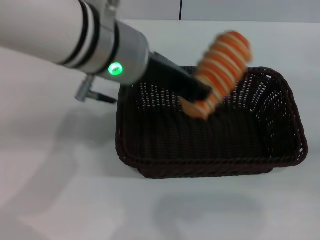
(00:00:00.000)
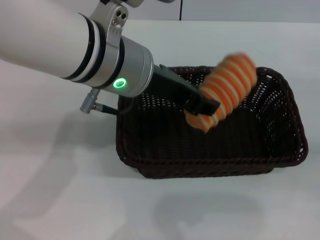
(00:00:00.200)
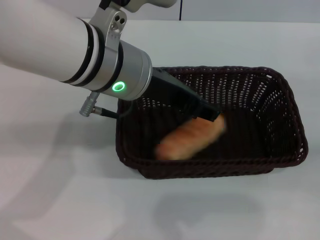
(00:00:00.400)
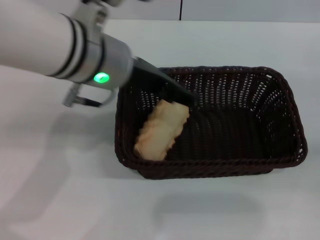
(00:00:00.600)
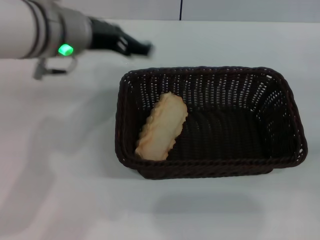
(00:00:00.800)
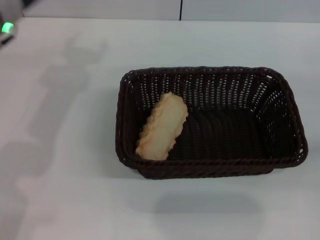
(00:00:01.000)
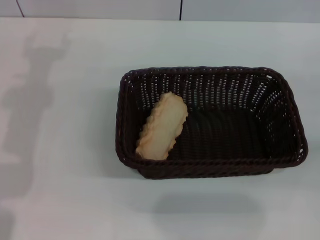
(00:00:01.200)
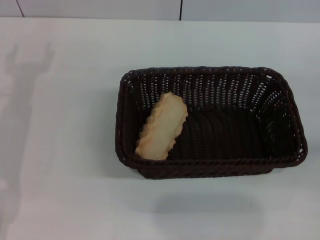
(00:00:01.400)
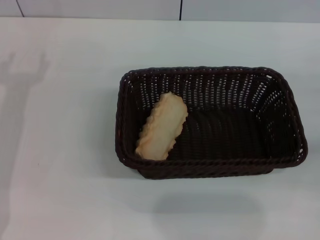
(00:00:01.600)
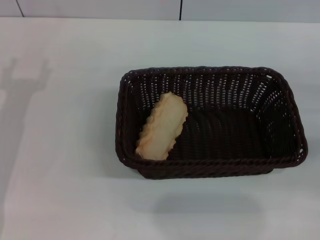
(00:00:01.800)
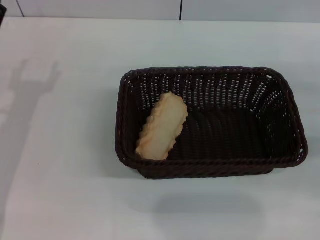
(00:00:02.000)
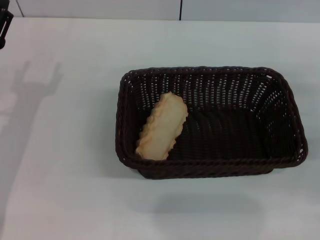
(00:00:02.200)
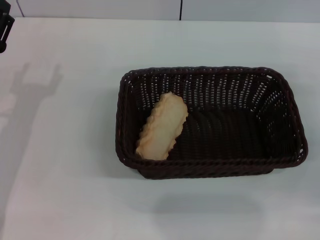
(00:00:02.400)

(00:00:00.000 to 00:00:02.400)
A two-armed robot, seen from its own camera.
00:00:00.000 - 00:00:01.200: The left gripper moves to the left, approximately 20 cm, and opens up.
00:00:01.200 - 00:00:02.400: The left gripper moves downward and backward, roughly 10 cm.

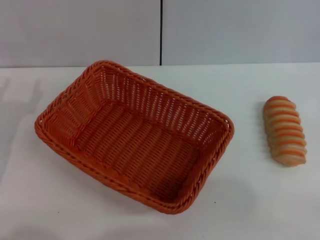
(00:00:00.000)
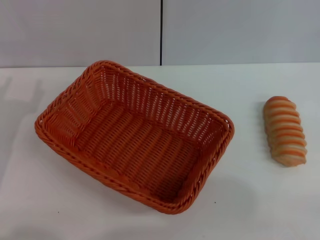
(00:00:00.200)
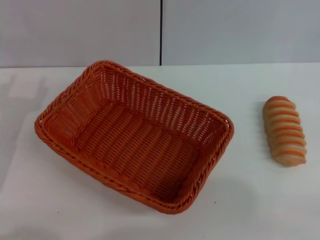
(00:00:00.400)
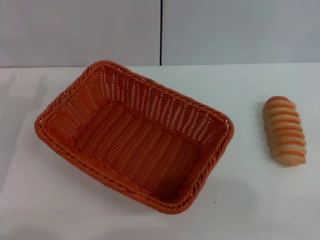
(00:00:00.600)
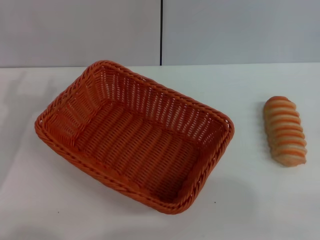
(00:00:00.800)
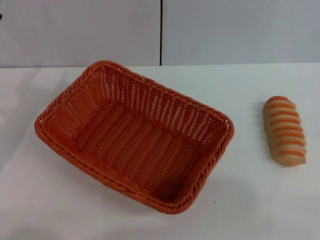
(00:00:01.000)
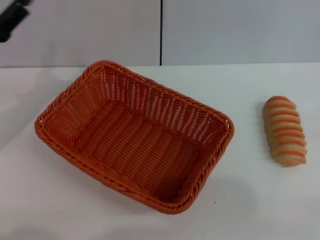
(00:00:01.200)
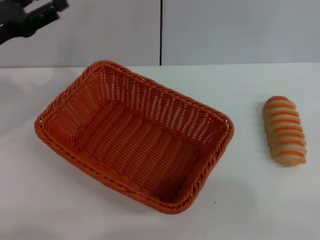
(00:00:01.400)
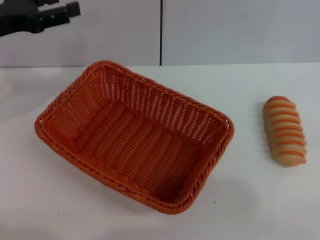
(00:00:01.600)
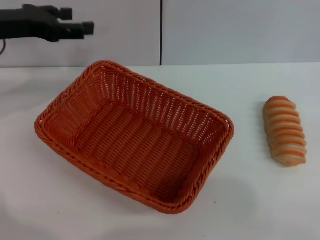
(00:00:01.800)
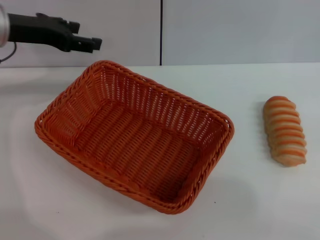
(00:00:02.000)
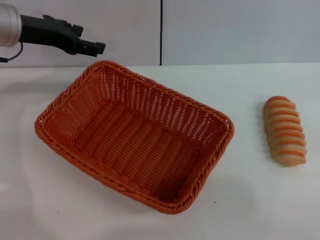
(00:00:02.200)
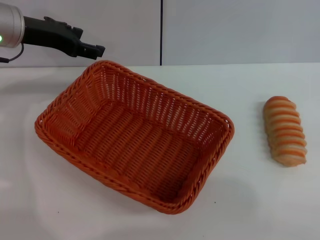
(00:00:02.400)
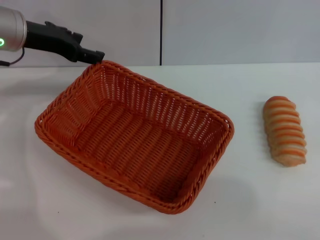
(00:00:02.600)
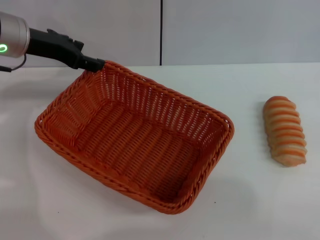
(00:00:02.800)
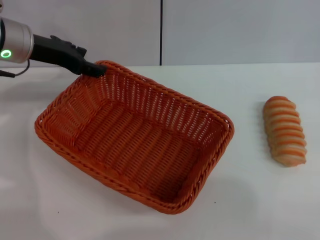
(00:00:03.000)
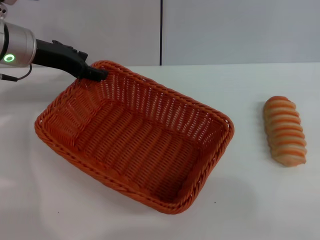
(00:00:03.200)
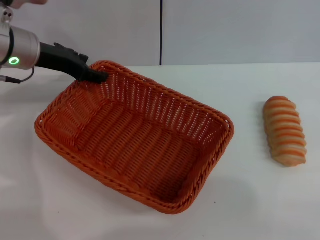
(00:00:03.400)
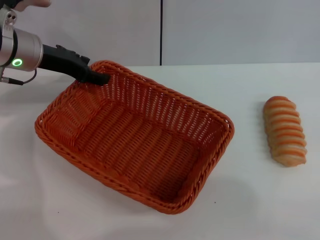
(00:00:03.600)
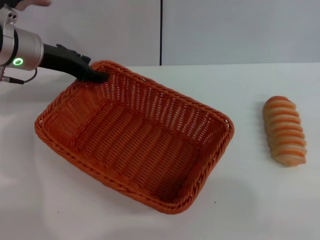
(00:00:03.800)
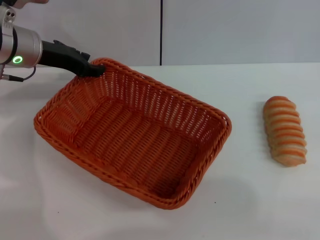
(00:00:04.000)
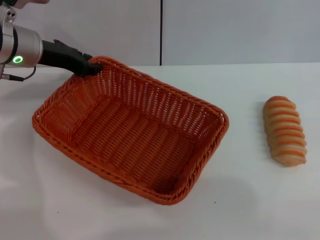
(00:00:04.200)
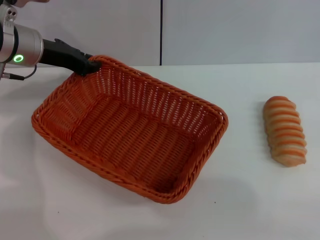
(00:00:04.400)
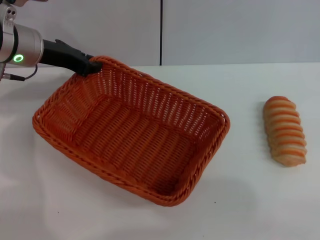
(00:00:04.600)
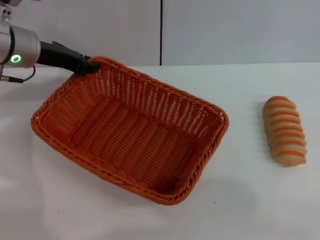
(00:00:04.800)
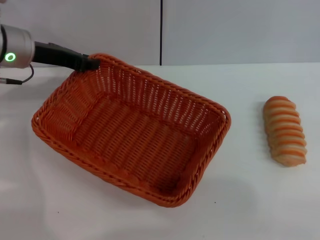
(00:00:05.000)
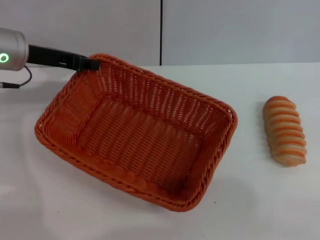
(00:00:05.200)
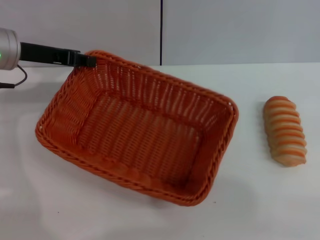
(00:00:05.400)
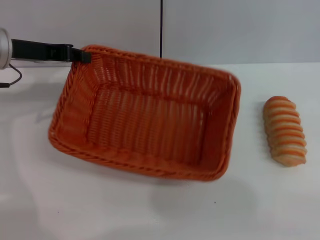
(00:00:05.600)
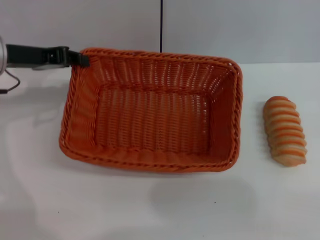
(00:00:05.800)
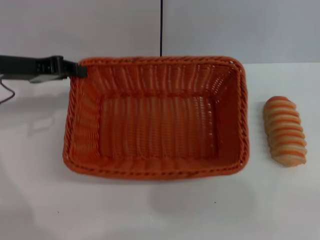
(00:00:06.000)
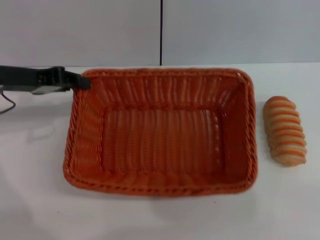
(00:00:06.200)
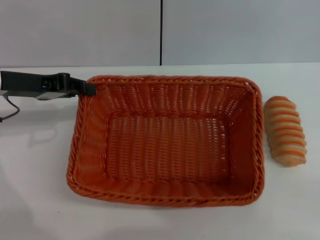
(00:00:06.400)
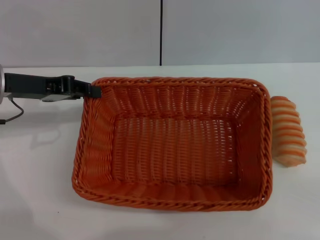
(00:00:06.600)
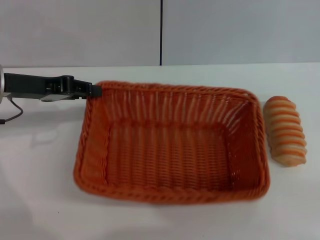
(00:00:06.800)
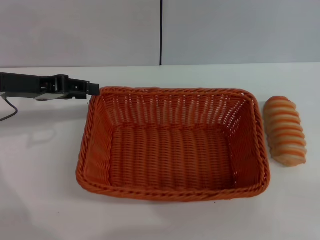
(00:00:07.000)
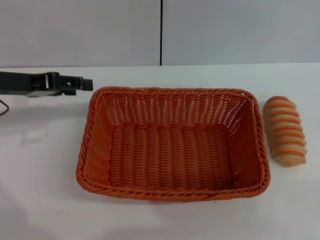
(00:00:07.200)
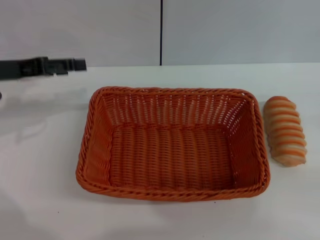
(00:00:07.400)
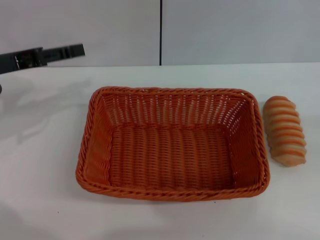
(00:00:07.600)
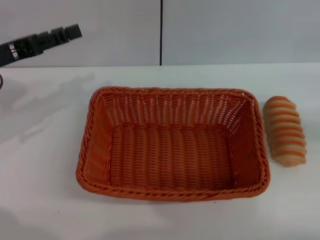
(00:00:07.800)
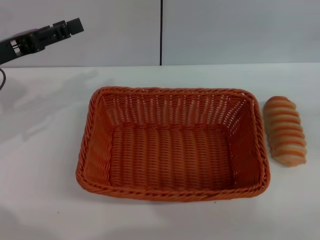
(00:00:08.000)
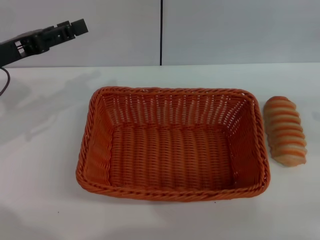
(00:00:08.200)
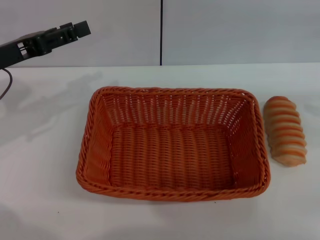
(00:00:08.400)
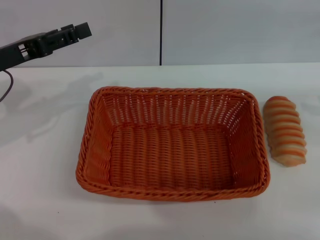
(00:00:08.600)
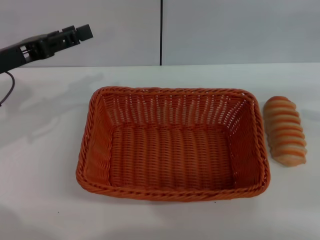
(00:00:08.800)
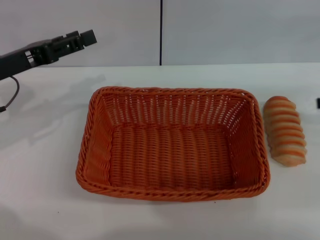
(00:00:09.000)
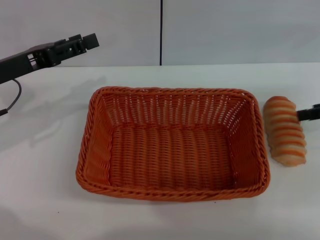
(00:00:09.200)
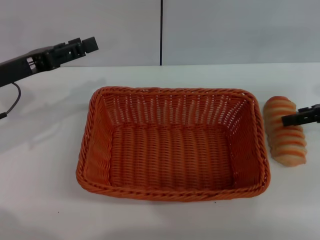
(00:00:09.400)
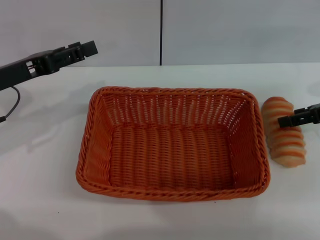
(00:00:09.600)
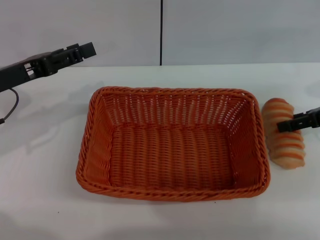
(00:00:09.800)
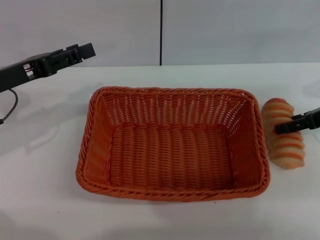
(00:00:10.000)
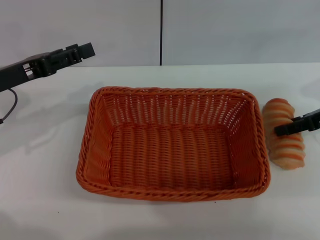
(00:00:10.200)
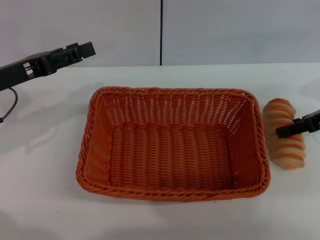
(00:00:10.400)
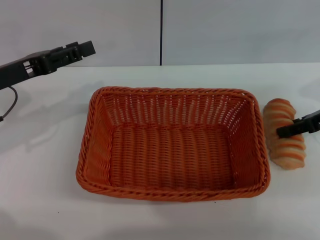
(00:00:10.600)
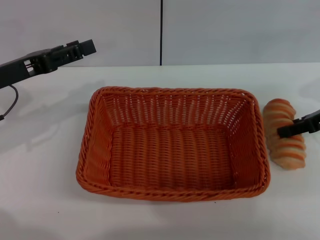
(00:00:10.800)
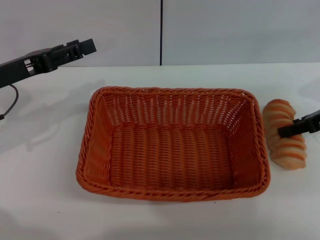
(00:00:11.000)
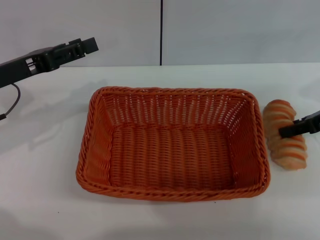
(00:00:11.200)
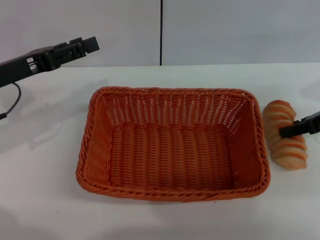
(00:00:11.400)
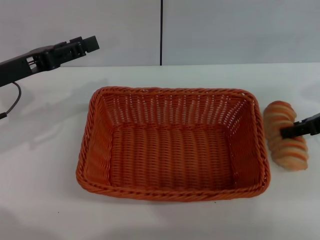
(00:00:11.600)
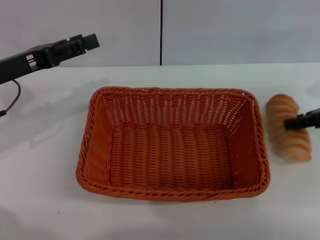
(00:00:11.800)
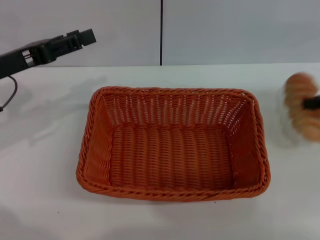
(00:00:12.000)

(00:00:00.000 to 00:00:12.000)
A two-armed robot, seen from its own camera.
Step, 00:00:00.000 - 00:00:05.600: Pick up the light basket with the left gripper.
Step, 00:00:05.800 - 00:00:07.800: Place the light basket in the center of view with the left gripper.
Step, 00:00:08.200 - 00:00:11.800: Pick up the long bread with the right gripper.
00:00:00.000 - 00:00:01.600: The left gripper is displaced forward and upward by some 15 cm.
00:00:01.600 - 00:00:03.000: The left gripper moves to the right, roughly 5 cm.
00:00:03.000 - 00:00:04.400: The left gripper closes up.
00:00:04.400 - 00:00:06.000: The left gripper travels backward and to the left by approximately 10 cm.
00:00:06.000 - 00:00:07.600: The left gripper opens up, while the right gripper heads upward, covering approximately 10 cm.
00:00:09.000 - 00:00:10.400: The right gripper goes about 5 cm to the left.
00:00:10.400 - 00:00:12.000: The right gripper ends up roughly 5 cm from where it was, and closes up.

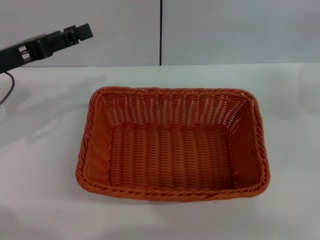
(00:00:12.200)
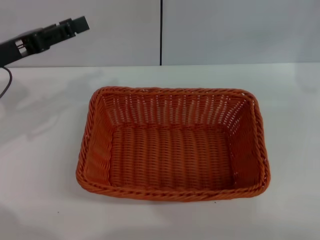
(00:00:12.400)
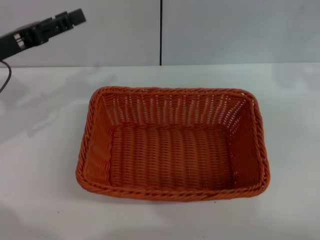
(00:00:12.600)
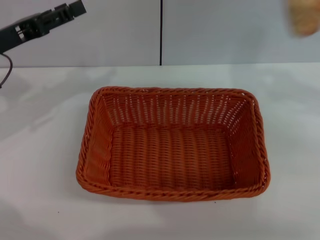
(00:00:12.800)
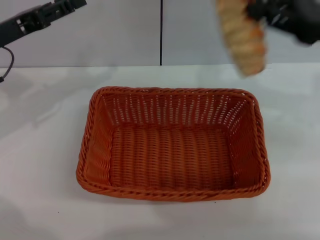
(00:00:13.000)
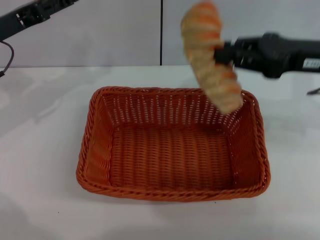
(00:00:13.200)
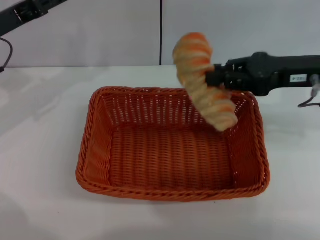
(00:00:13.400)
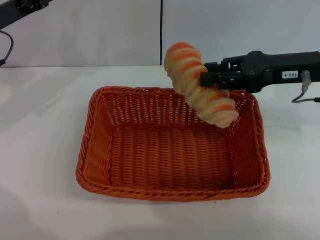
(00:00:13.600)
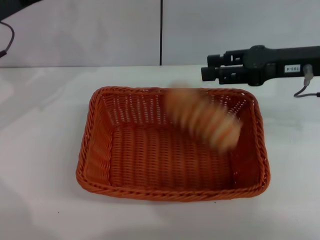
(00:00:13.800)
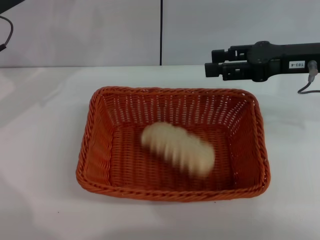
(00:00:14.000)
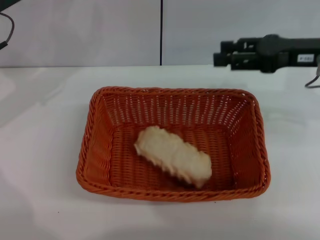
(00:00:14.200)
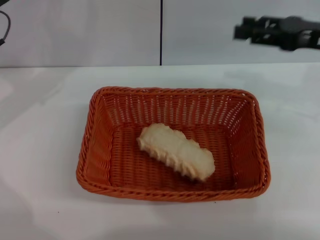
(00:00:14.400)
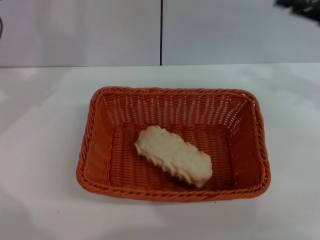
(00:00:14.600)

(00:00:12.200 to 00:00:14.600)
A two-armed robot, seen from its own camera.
Step, 00:00:12.200 - 00:00:13.800: Place the long bread into the light basket with the right gripper.
00:00:12.200 - 00:00:13.400: The right gripper is displaced to the left by about 15 cm.
00:00:13.400 - 00:00:14.600: The right gripper heads to the right, covering about 10 cm, and opens.
